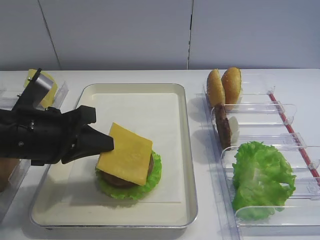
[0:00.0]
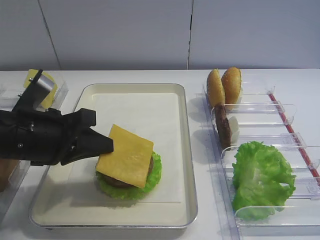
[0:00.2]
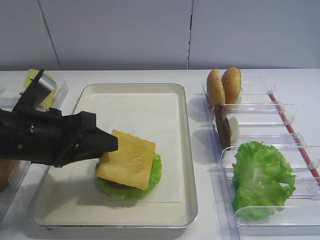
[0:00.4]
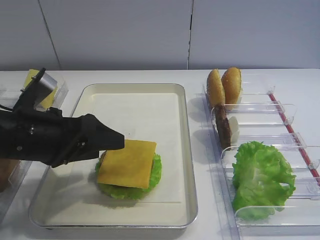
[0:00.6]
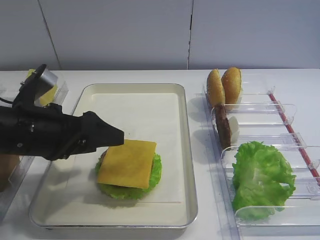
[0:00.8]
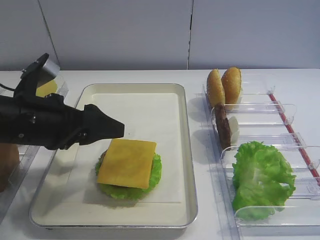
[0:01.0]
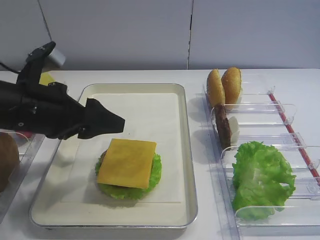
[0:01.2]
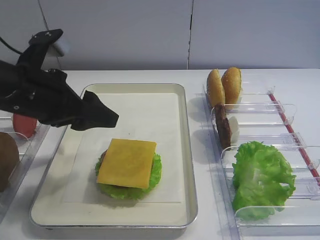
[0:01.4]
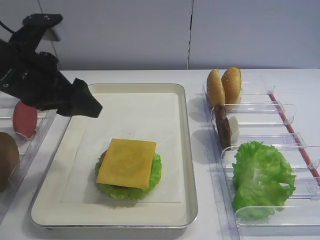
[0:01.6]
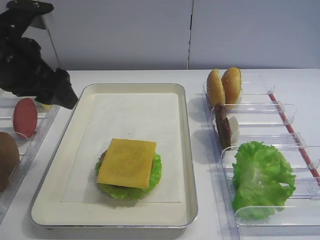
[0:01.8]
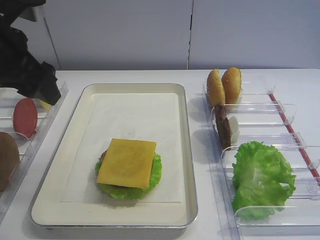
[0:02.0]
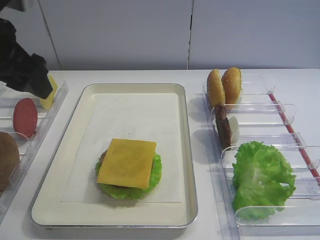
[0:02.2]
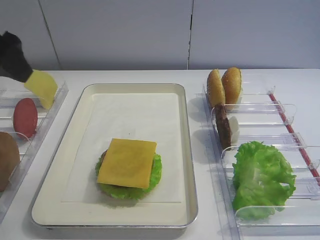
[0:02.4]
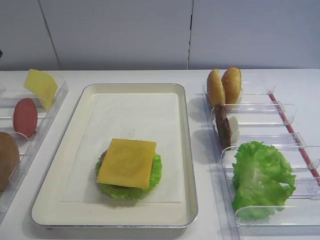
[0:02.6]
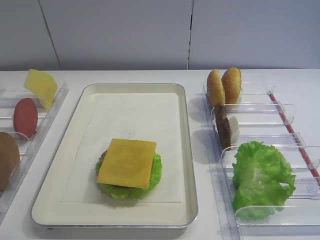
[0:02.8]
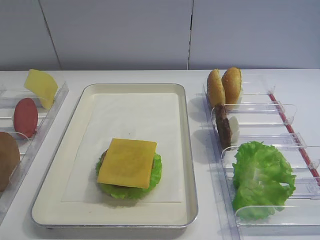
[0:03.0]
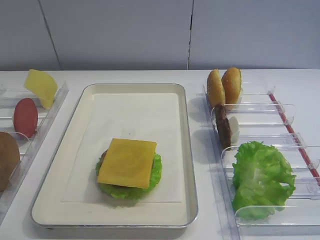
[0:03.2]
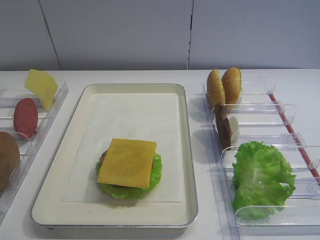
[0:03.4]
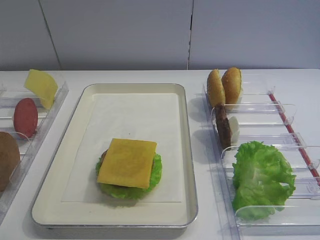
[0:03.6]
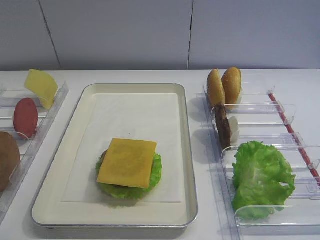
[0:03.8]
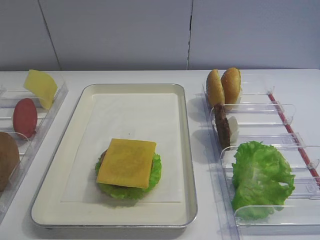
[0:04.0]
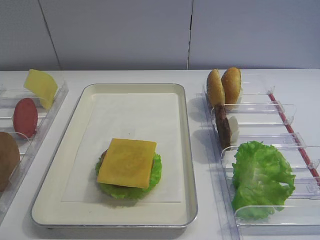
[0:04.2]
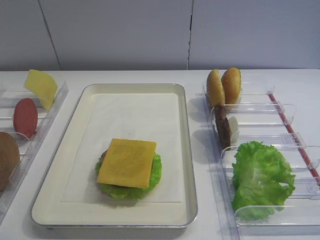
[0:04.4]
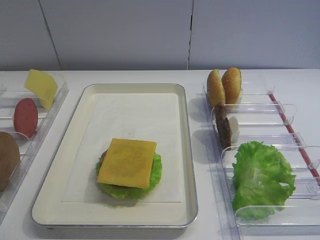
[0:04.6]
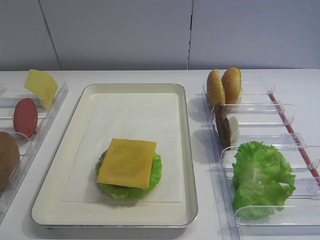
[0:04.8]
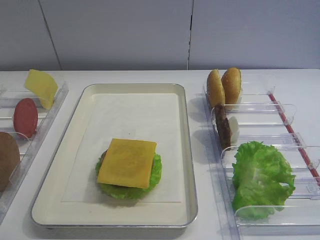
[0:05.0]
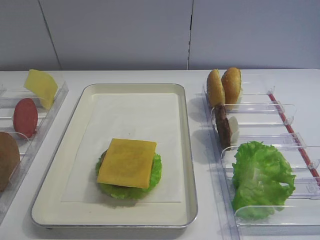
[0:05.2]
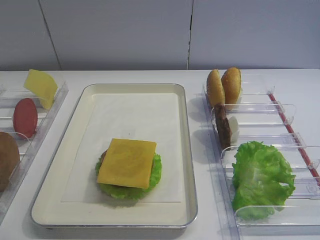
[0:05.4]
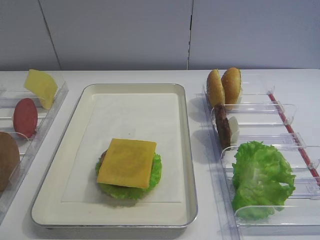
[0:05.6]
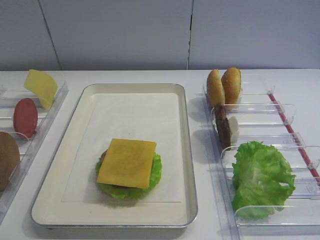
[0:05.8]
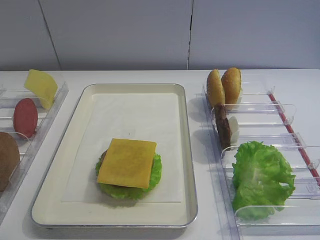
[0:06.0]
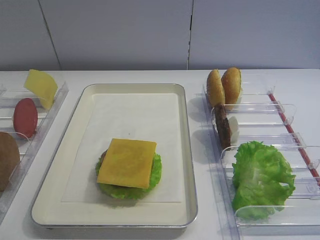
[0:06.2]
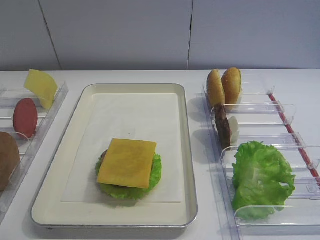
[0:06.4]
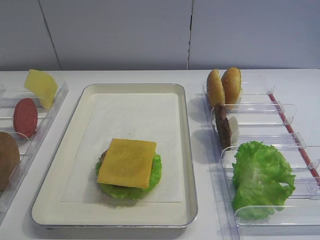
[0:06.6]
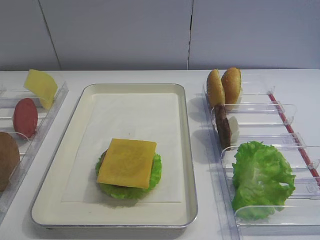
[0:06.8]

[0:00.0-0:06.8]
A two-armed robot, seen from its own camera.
0:00.0 to 0:01.4: The left gripper shifts by some 5 cm, and opens up.
0:01.4 to 0:02.8: The left gripper goes approximately 20 cm upward, backward and to the left.
0:05.4 to 0:06.8: Both grippers stay put.

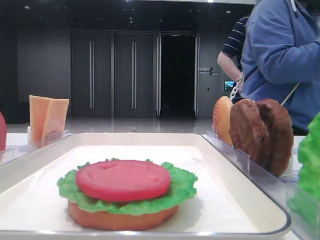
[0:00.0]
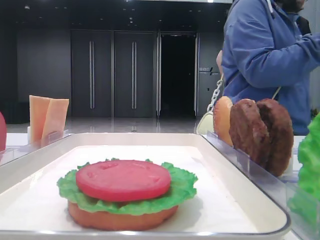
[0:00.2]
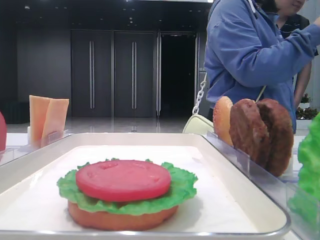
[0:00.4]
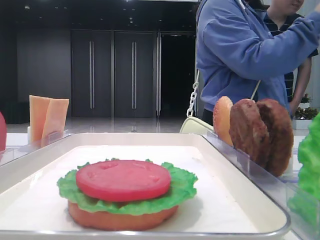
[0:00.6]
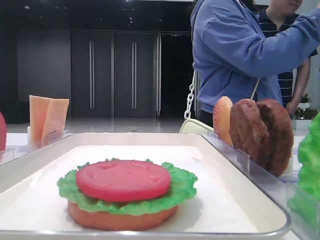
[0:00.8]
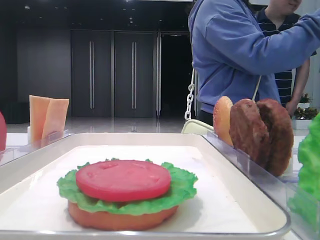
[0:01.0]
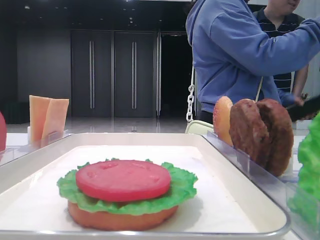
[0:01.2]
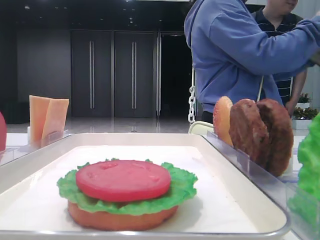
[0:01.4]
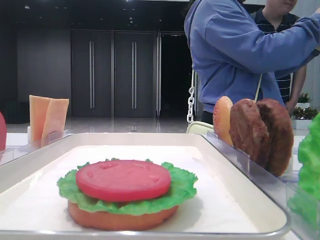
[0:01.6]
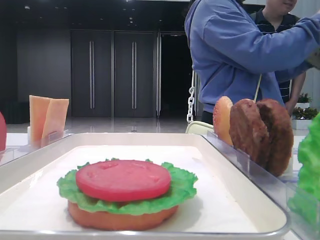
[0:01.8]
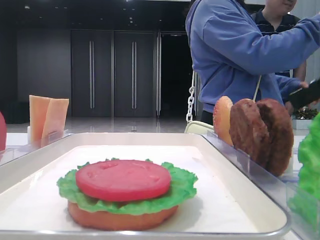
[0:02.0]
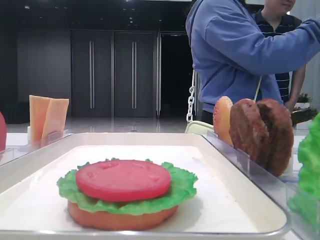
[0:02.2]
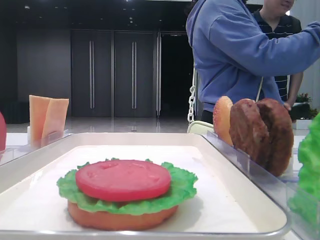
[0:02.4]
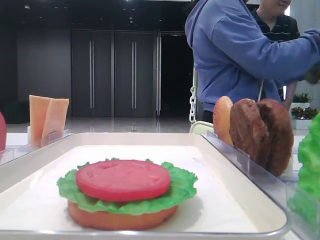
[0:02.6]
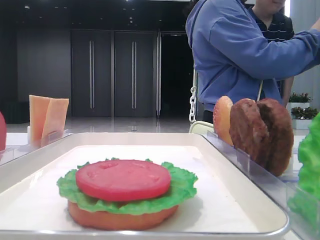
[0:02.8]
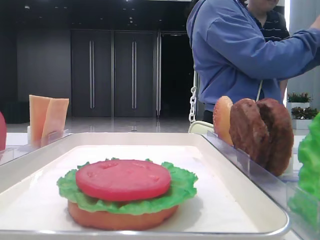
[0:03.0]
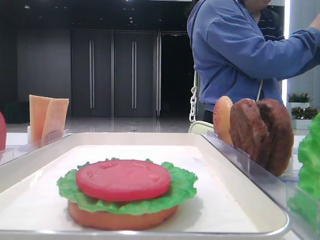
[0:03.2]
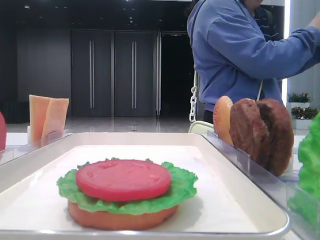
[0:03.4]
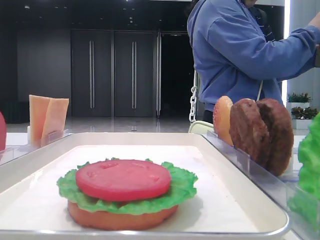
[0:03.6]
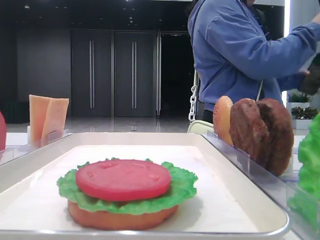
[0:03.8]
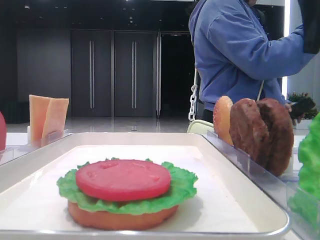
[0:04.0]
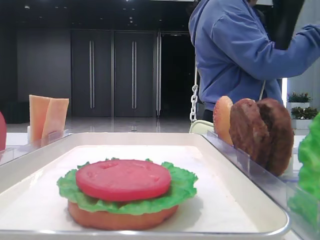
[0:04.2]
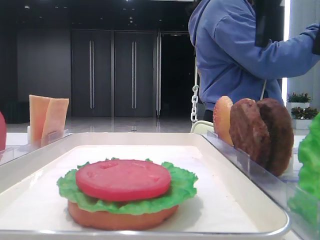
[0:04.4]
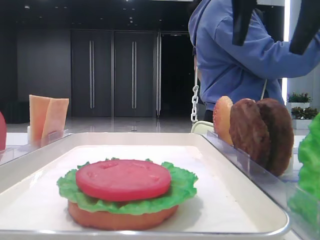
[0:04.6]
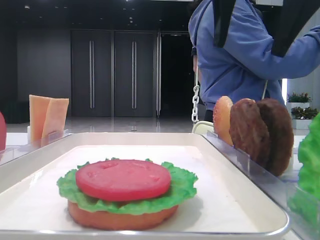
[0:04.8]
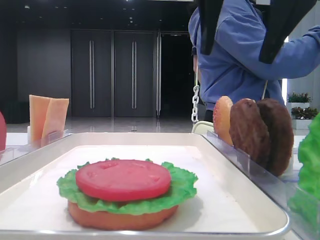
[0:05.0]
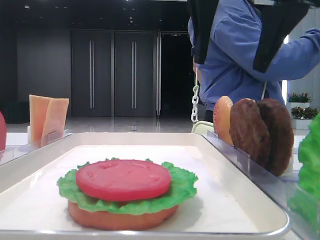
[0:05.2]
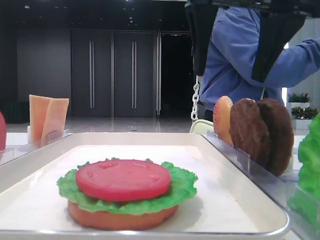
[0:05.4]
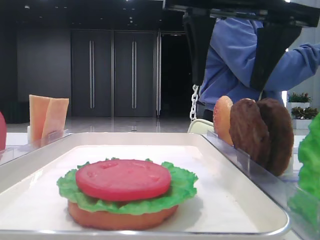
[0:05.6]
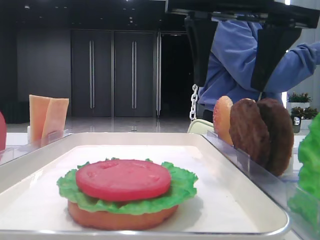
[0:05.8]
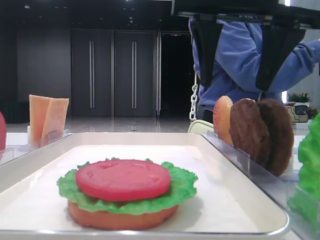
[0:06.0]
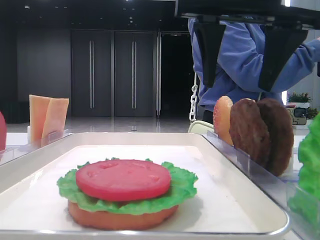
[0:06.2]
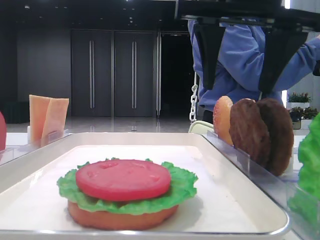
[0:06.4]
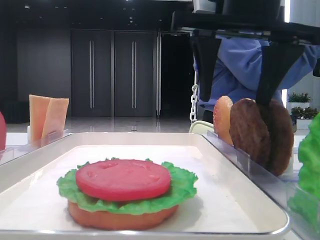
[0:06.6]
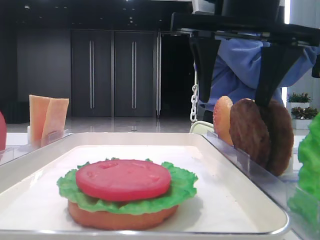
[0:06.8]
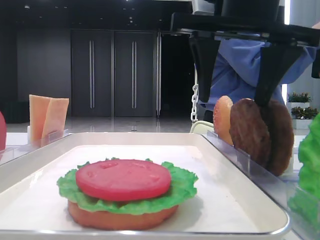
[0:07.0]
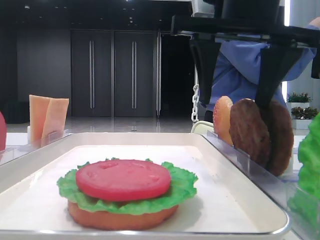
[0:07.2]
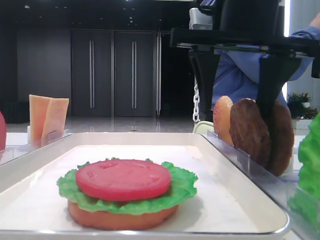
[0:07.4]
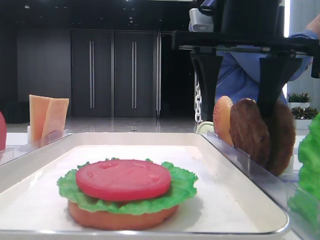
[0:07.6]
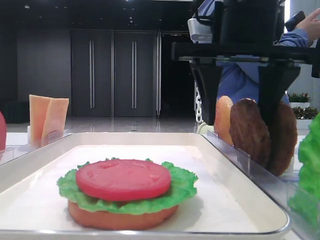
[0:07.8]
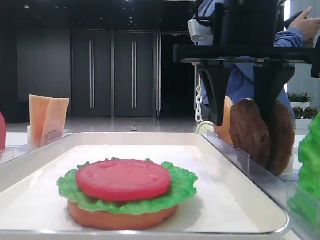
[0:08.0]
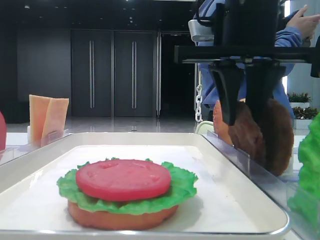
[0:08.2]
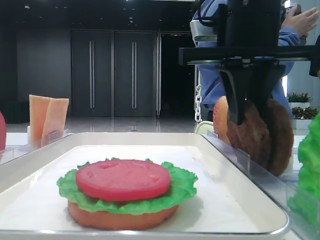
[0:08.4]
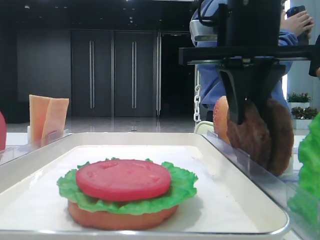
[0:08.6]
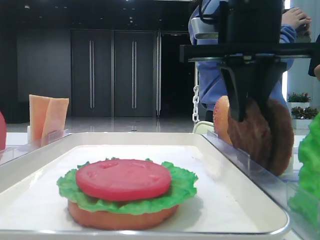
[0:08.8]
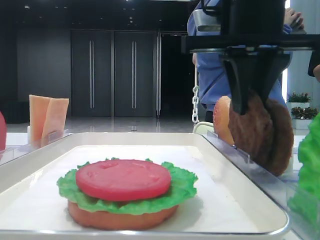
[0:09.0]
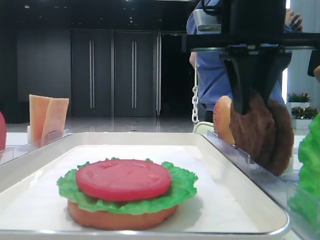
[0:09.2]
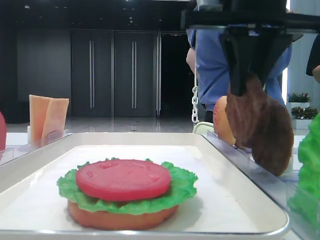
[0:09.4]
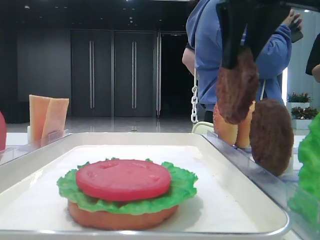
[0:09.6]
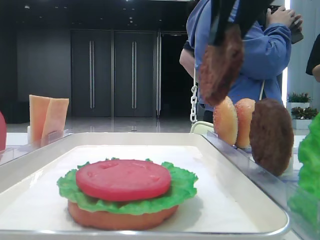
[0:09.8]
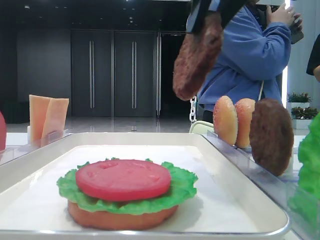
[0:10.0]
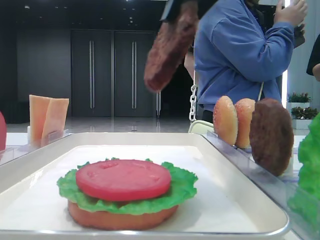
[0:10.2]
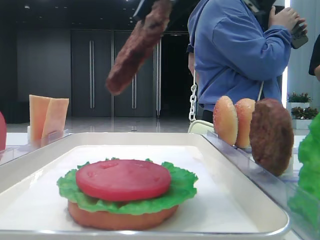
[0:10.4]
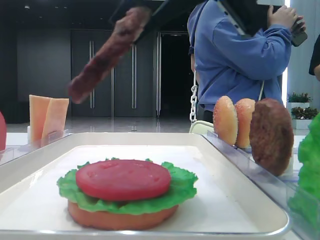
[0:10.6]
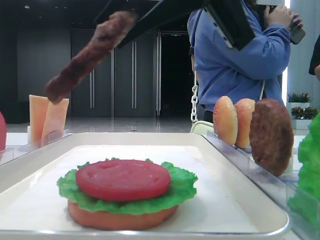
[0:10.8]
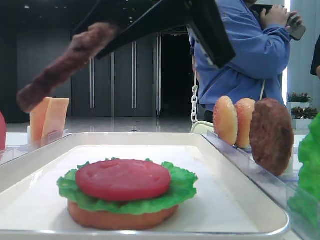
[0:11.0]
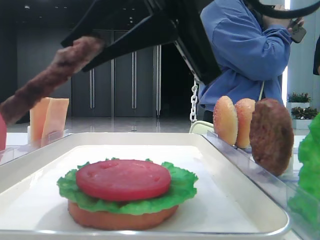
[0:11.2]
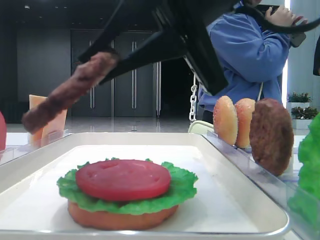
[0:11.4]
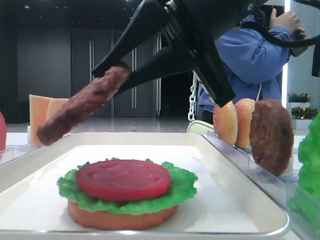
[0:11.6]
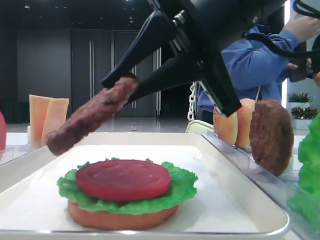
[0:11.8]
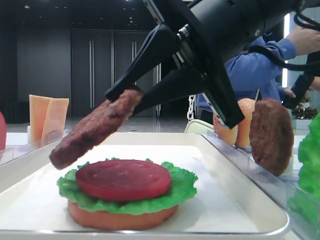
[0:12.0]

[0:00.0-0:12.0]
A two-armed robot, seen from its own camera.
Step, 0:00.0 to 0:08.6: Grab the patty with the right hand.
0:01.6 to 0:03.0: The right gripper shifts some 20 cm forward.
0:03.0 to 0:04.4: The right gripper moves to the left, approximately 10 cm.
0:04.4 to 0:06.0: The right gripper shifts approximately 5 cm to the left.
0:06.0 to 0:07.6: The grippers stay close to where they were, moving slightly.
0:07.6 to 0:09.0: The right gripper closes.
0:09.0 to 0:10.4: The right gripper moves backward and upward, roughly 10 cm.
0:10.4 to 0:12.0: The right gripper heads downward, covering approximately 10 cm.

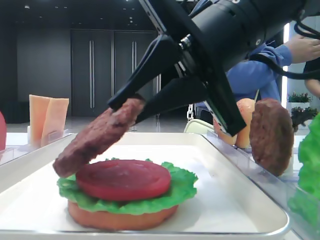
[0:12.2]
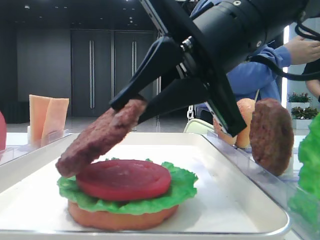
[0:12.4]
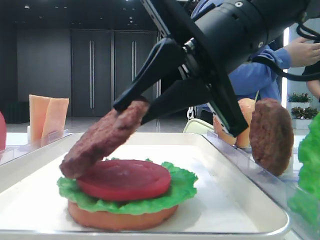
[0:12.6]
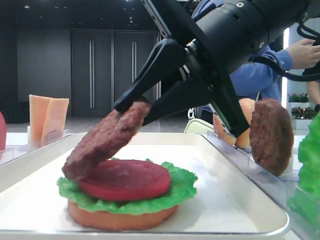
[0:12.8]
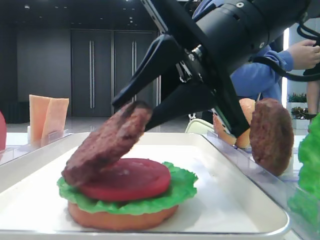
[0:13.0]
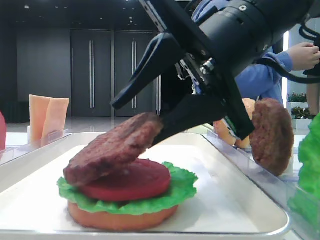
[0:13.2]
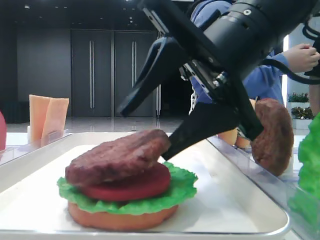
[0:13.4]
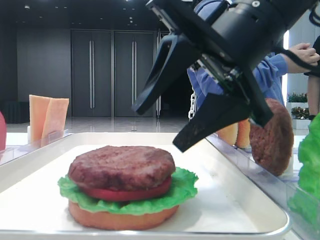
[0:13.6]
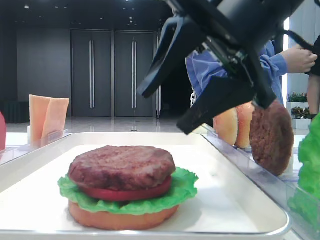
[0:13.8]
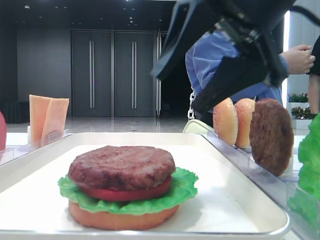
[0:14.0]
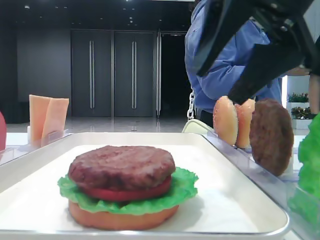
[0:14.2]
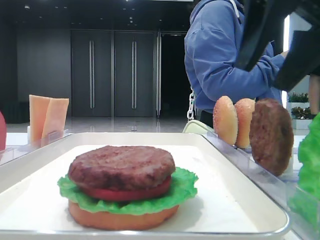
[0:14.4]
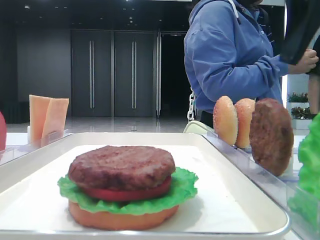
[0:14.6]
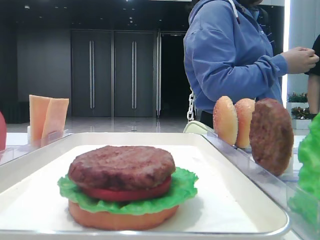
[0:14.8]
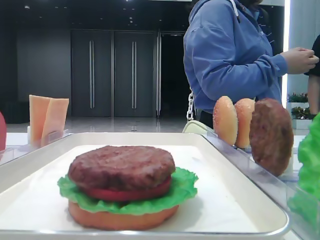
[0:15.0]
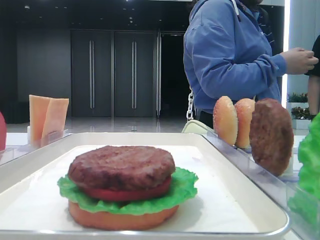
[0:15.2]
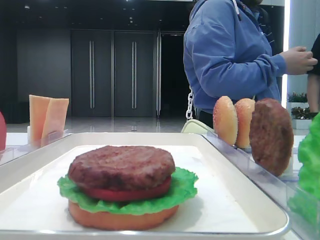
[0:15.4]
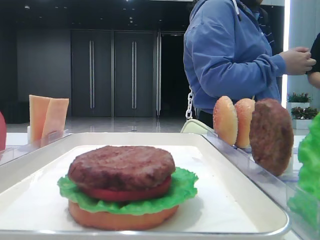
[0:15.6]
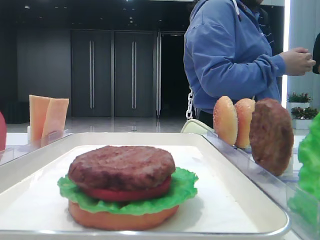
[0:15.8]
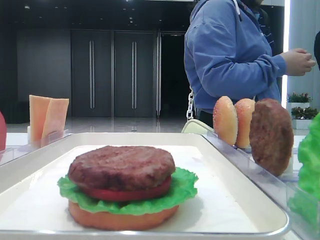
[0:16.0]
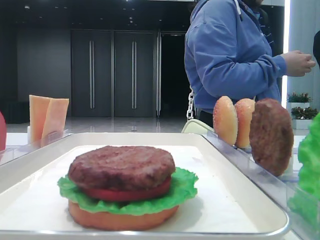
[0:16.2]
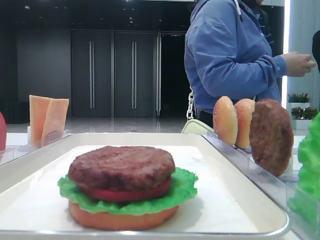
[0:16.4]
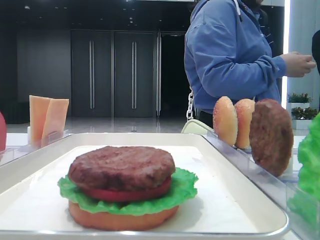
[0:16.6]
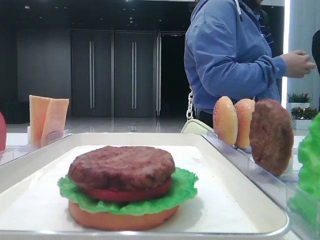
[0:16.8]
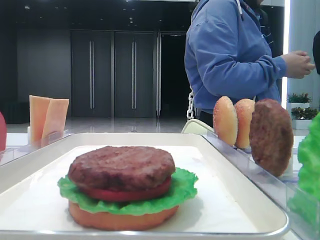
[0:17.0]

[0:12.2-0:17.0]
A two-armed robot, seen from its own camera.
0:12.2 to 0:13.8: The right gripper opens up.
0:13.8 to 0:15.4: The right gripper travels to the right and upward by about 25 cm.
0:15.4 to 0:17.0: The right gripper travels backward by approximately 20 cm.
